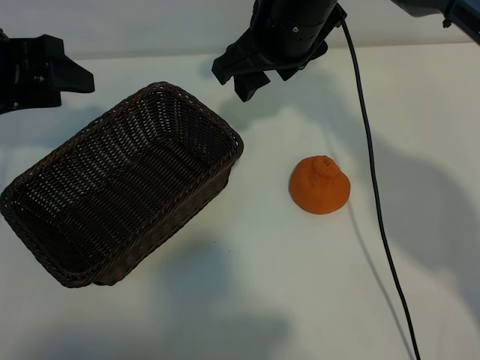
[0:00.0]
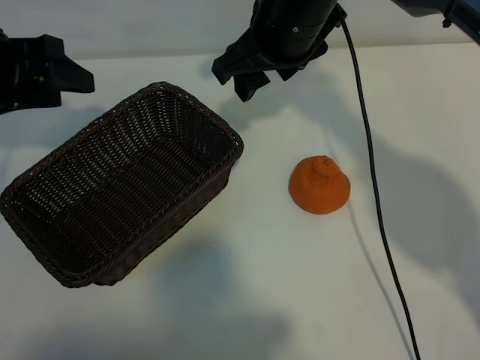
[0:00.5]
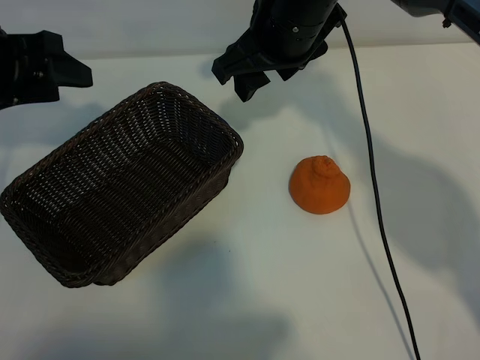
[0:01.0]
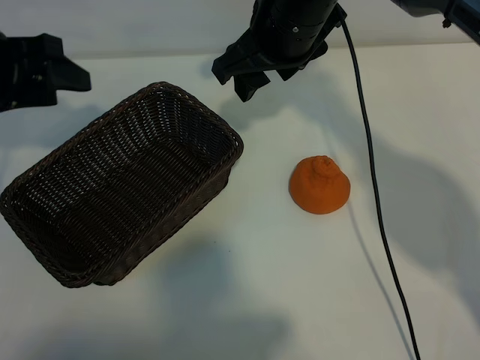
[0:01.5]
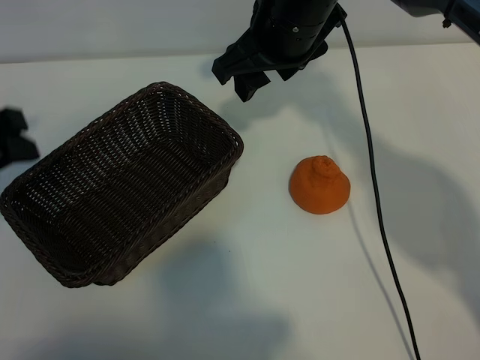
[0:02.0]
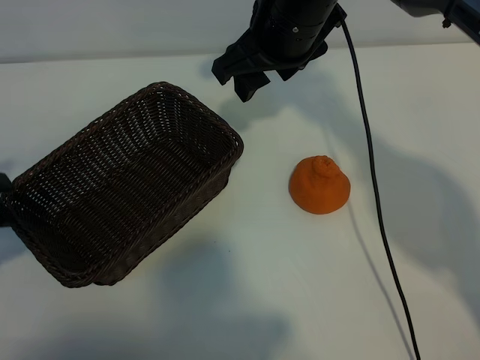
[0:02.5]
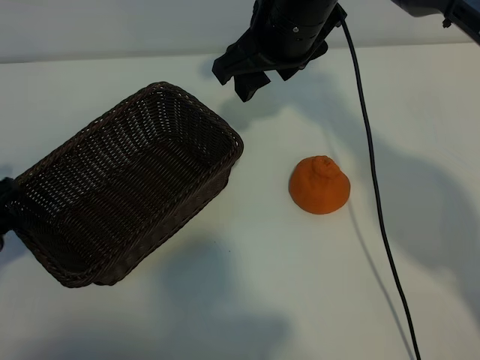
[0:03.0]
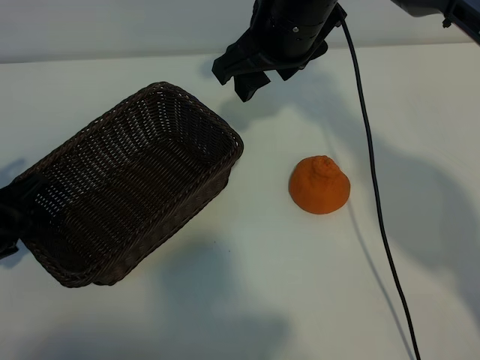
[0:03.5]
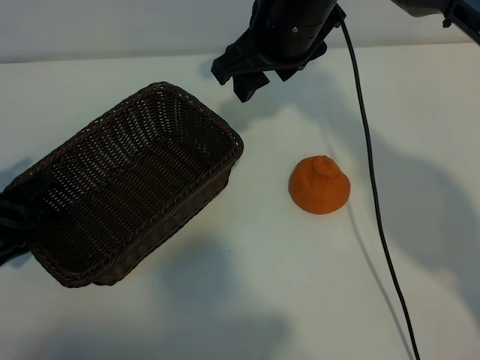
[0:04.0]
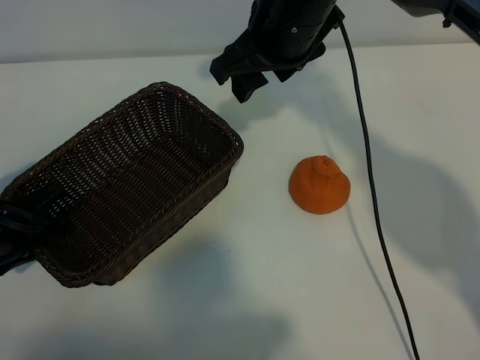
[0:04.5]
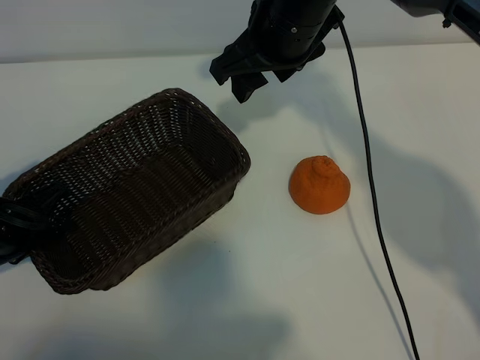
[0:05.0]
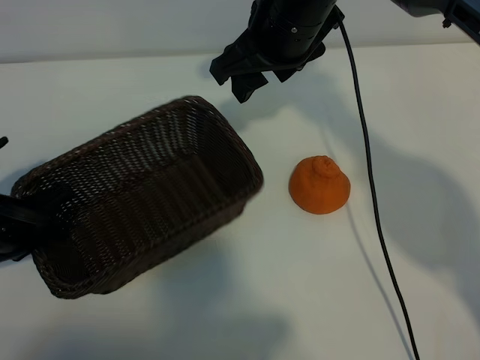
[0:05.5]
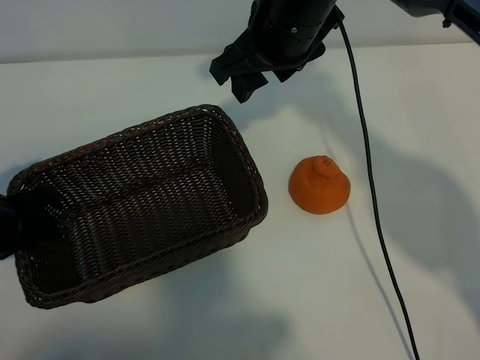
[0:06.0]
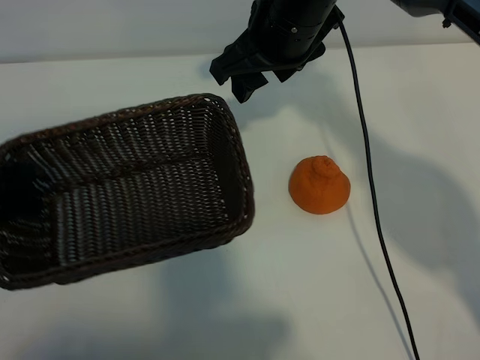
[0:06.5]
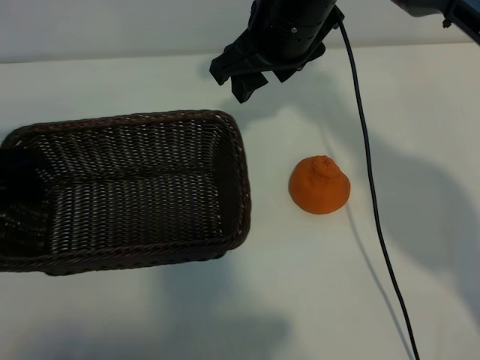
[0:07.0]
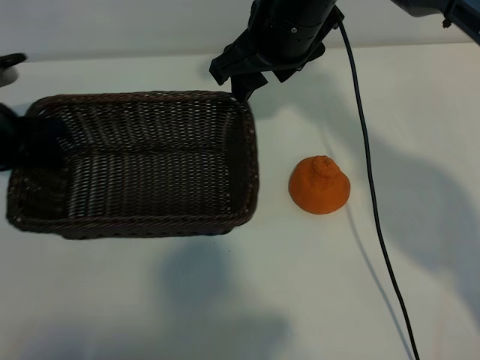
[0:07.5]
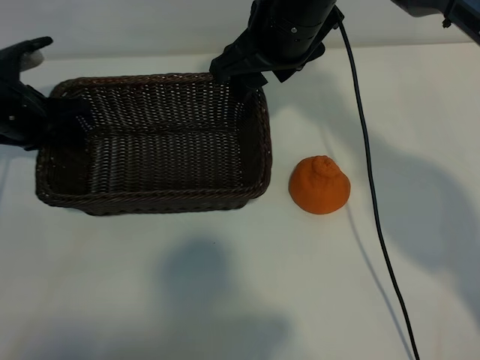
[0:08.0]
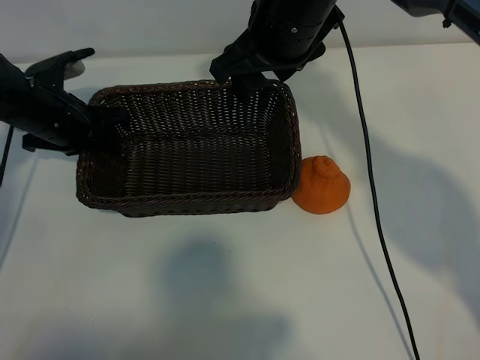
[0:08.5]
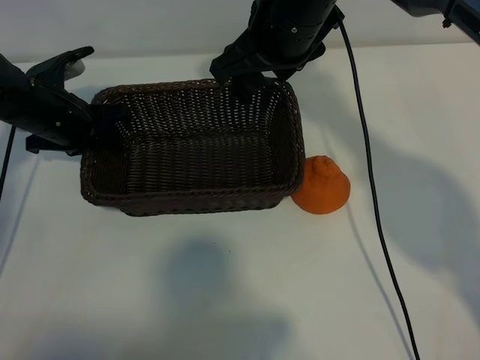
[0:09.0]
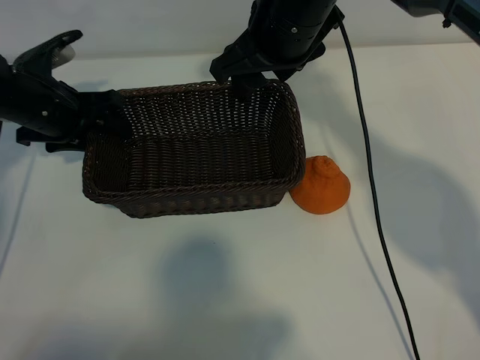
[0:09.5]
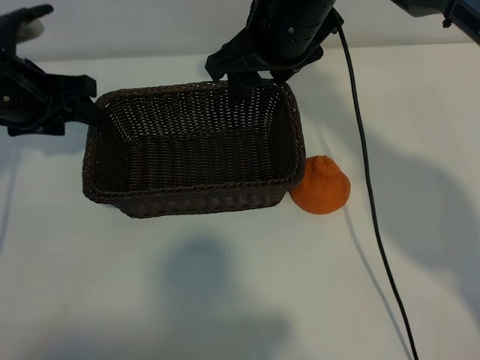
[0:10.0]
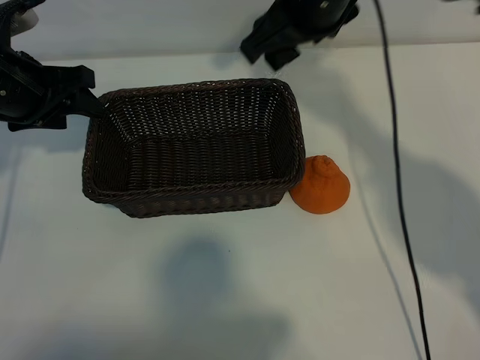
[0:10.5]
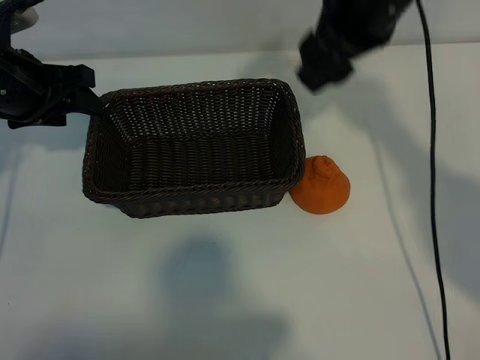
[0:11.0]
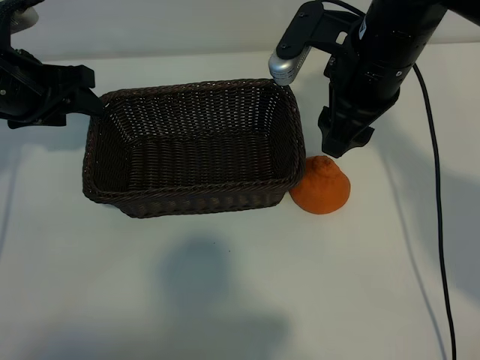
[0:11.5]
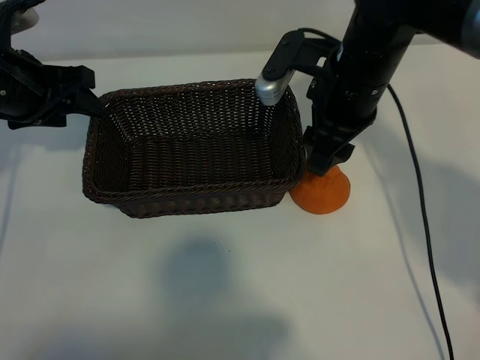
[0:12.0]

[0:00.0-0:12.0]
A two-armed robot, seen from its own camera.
Task of the whole recording: pick up the orange and put it into the basket.
Step, 0:01.0 to 0:05.0: Grasp the basket with left gripper.
Step, 0:05.5 to 0:09.0: Place the basket in the center of view with left gripper.

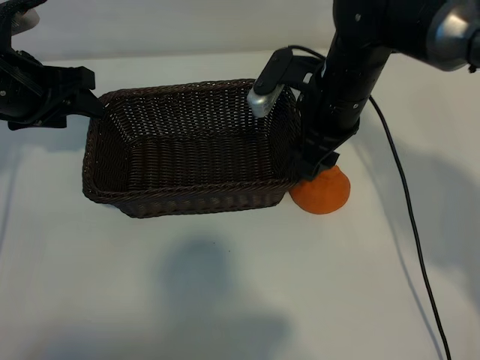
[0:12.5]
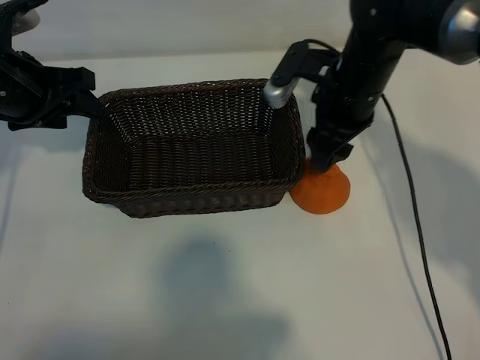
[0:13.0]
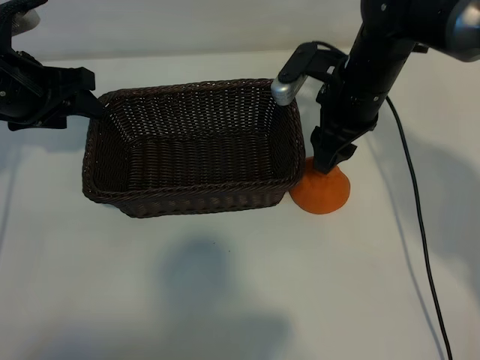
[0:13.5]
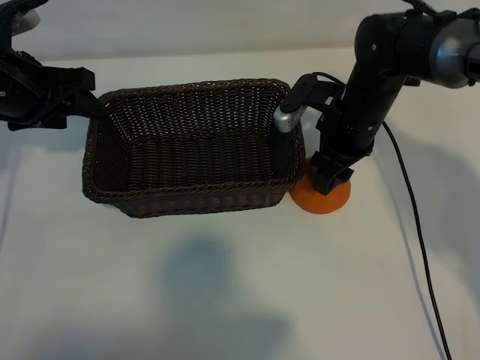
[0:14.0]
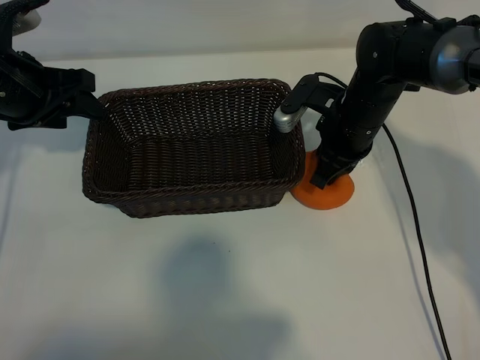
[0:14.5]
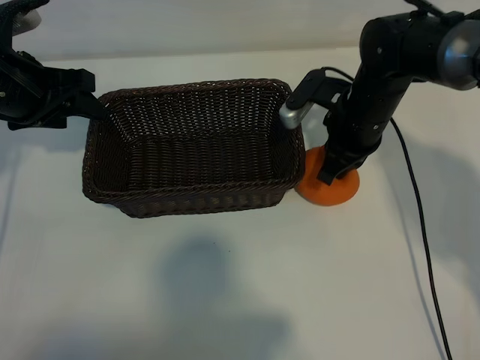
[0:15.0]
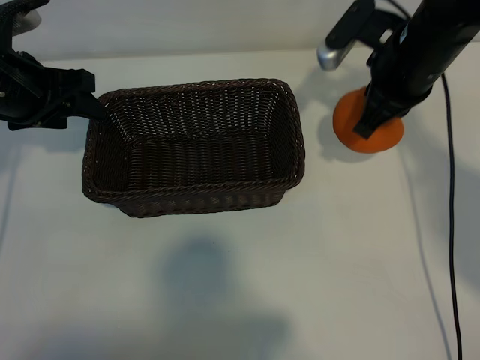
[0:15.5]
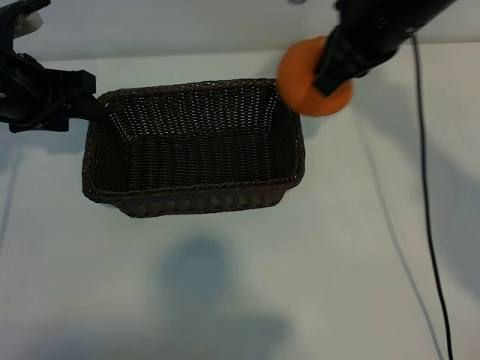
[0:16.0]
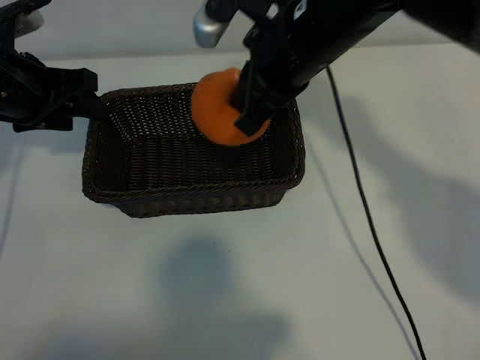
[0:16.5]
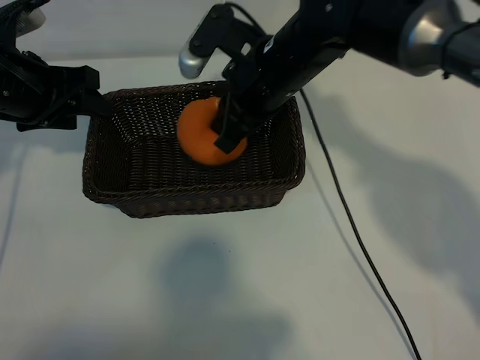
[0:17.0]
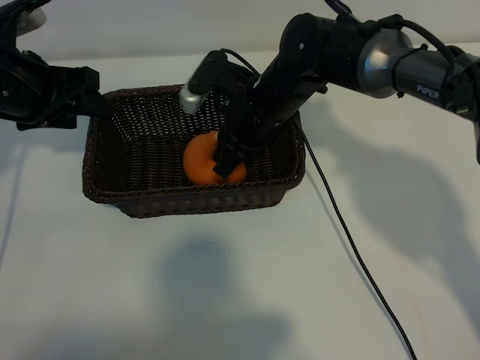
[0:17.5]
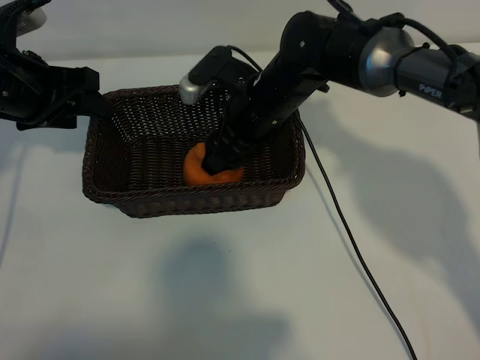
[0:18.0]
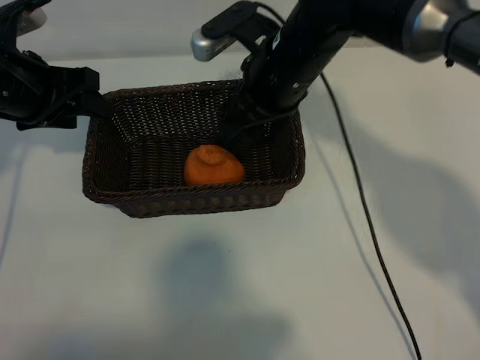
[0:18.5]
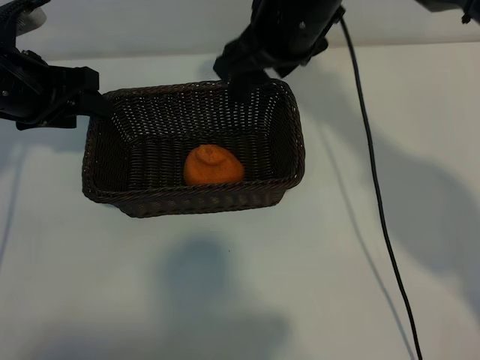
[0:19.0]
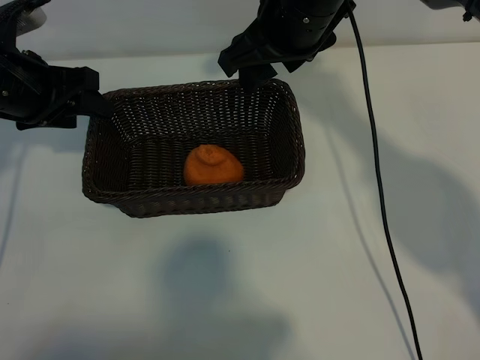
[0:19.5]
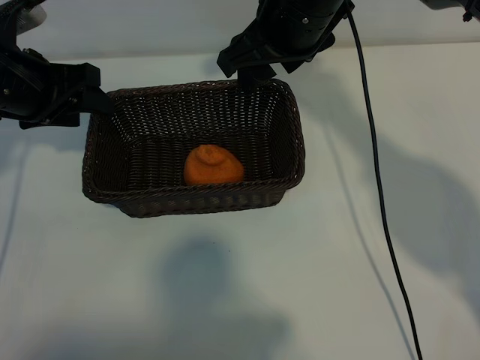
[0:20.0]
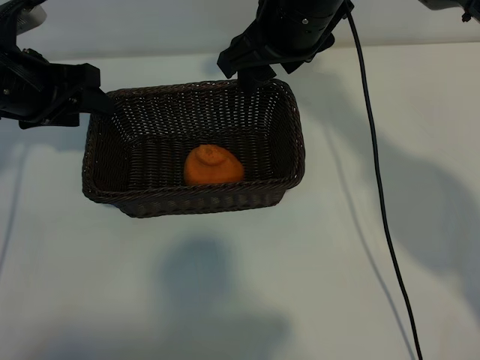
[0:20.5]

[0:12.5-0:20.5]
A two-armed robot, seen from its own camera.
Task of the whole recording: pick up the orange and put it into the basket.
Step, 0:12.5 to 0:14.5: Grasp the orange with right gripper.
Step, 0:15.0 to 0:18.0: Place the orange in the basket with right gripper.

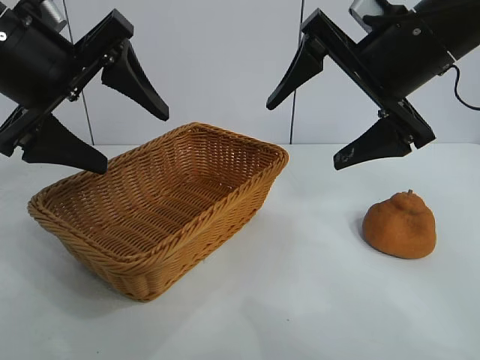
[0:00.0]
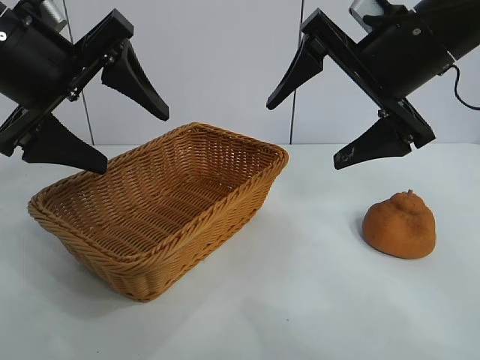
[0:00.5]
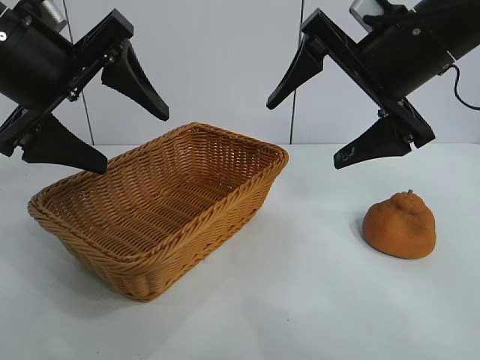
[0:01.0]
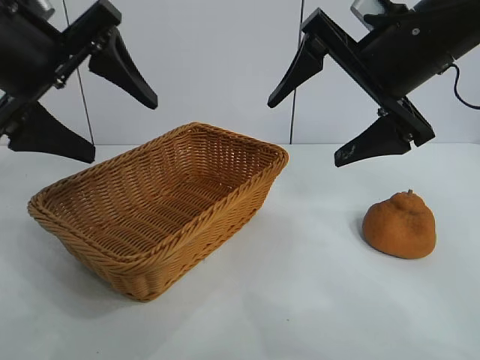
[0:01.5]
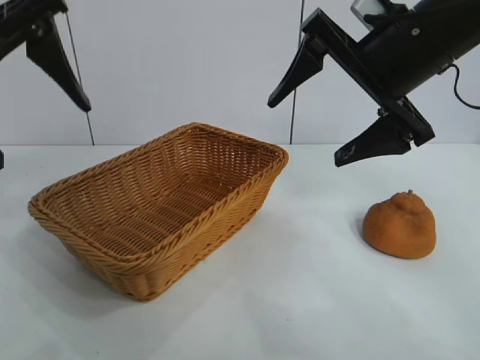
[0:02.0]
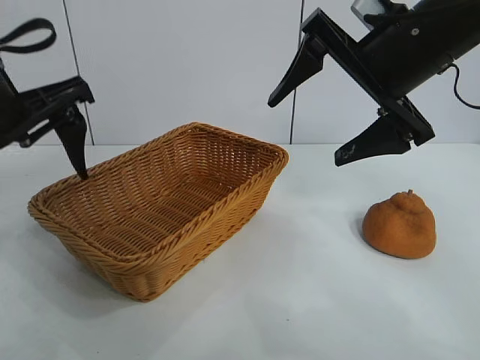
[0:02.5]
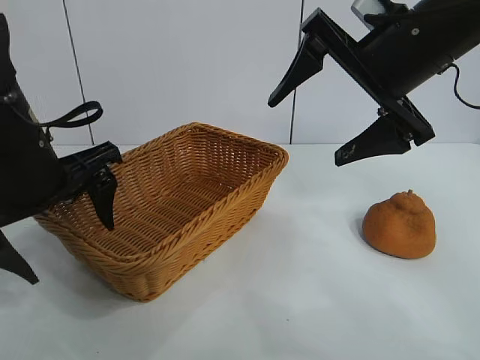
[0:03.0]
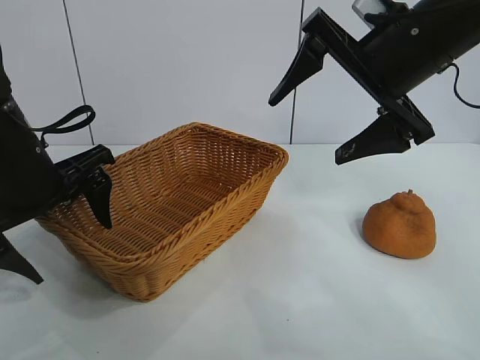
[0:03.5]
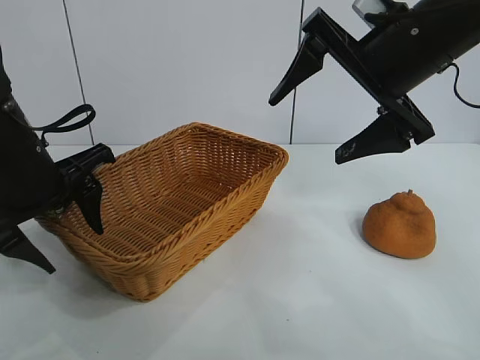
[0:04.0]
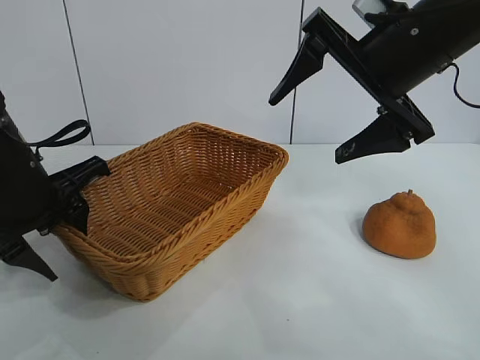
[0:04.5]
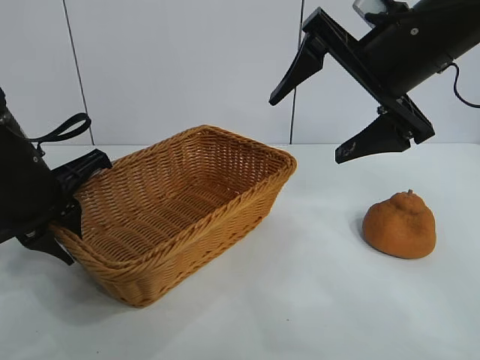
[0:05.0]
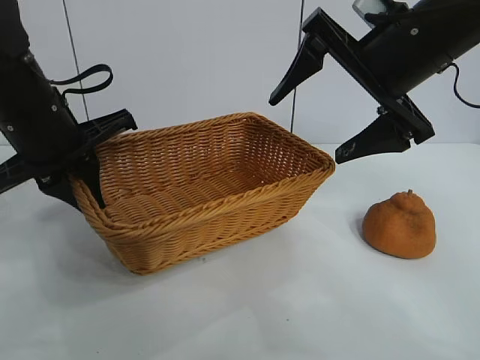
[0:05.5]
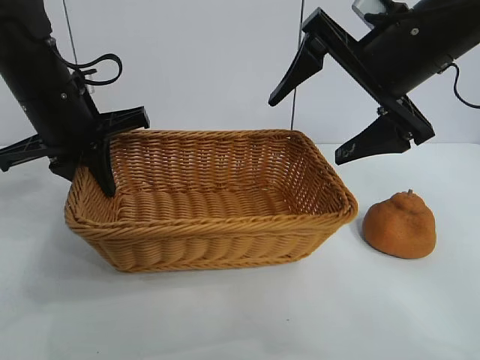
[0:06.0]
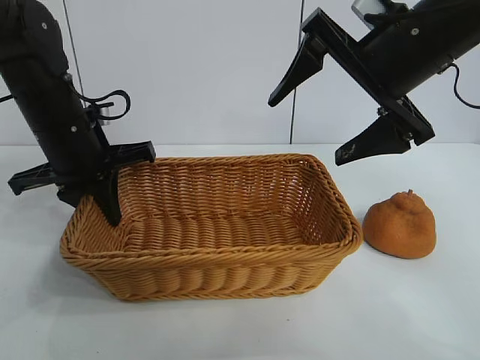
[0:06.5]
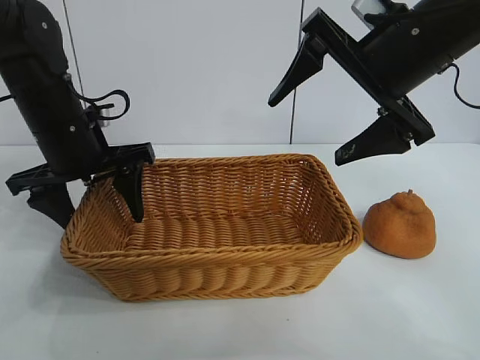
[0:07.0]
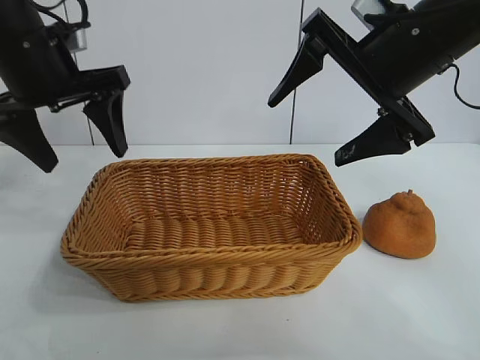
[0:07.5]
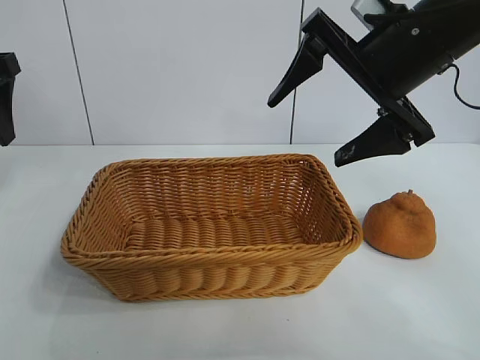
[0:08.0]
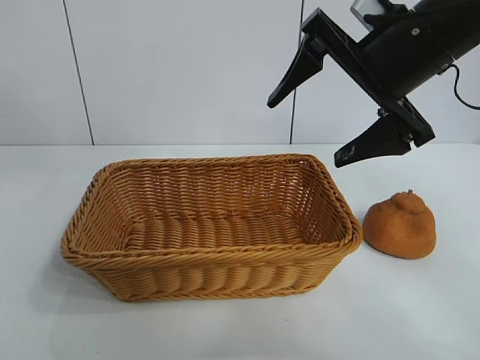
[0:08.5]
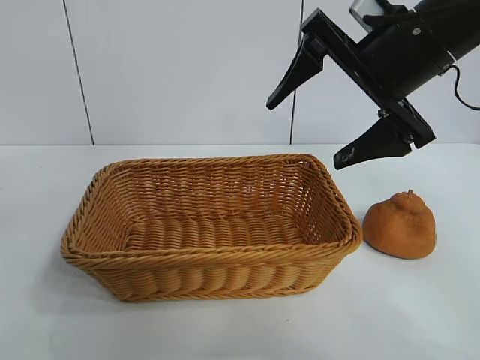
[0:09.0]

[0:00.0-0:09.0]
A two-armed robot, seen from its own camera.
Task of the whole recording: pick up the orange and put it into the basket.
Step, 0:01.5 to 0:05.0: Grasp the basket with left gripper.
Step, 0:05.5 to 0:07.0: Place the basket in the center of view with left gripper.
